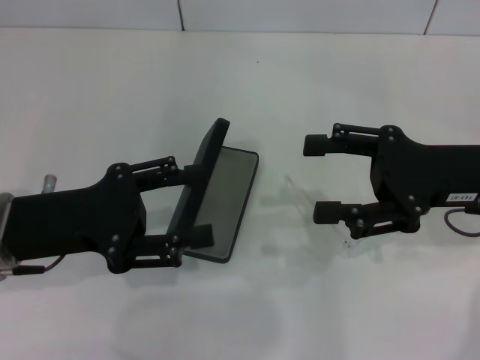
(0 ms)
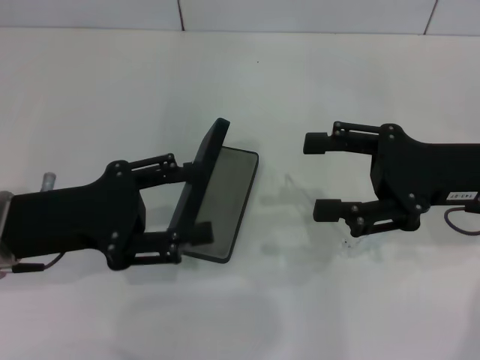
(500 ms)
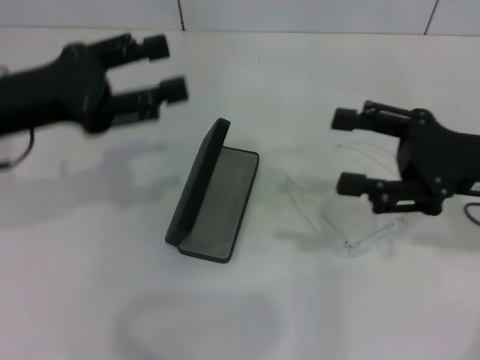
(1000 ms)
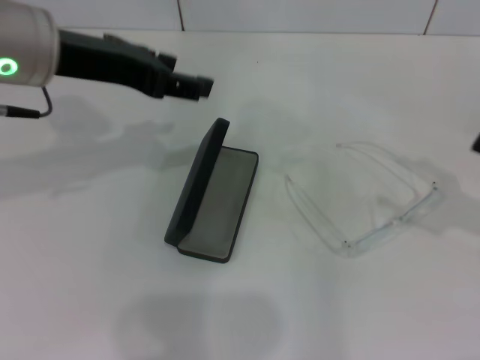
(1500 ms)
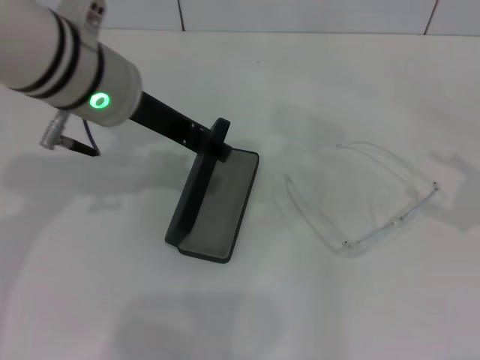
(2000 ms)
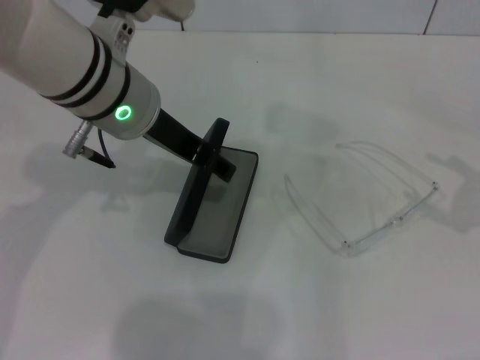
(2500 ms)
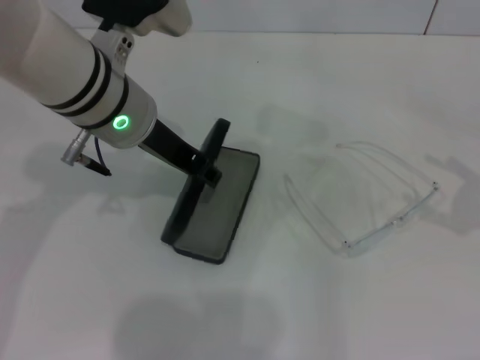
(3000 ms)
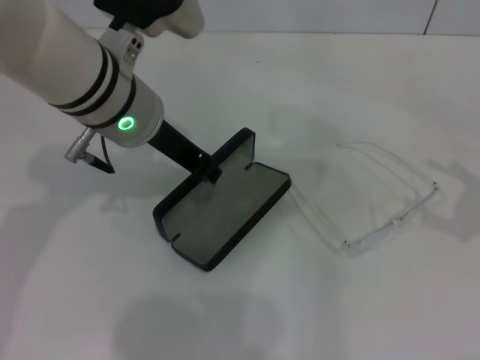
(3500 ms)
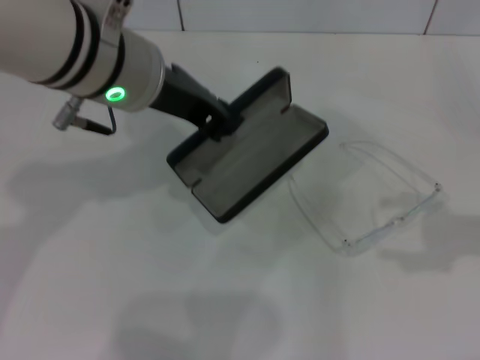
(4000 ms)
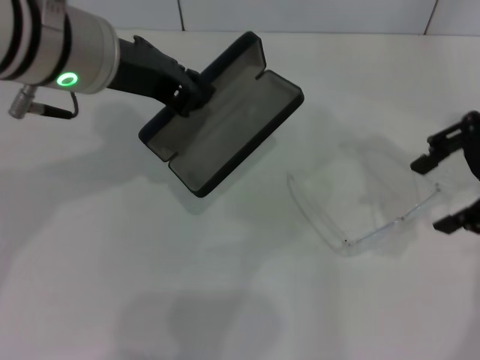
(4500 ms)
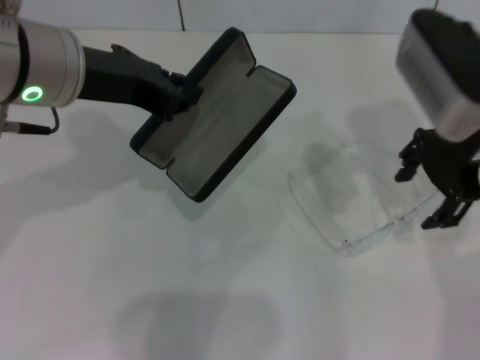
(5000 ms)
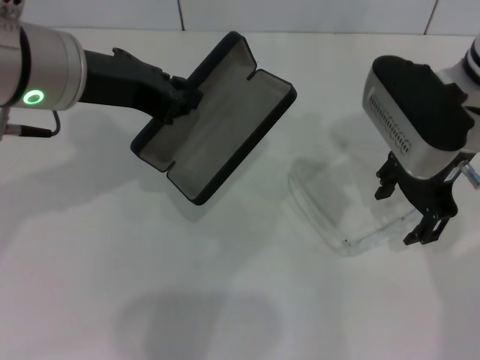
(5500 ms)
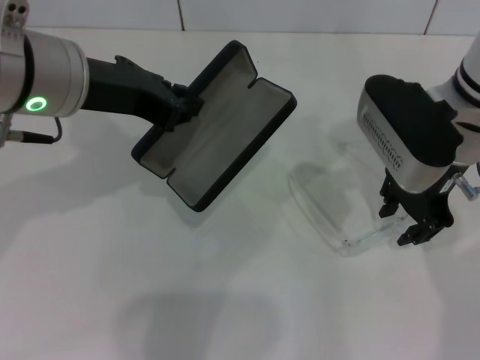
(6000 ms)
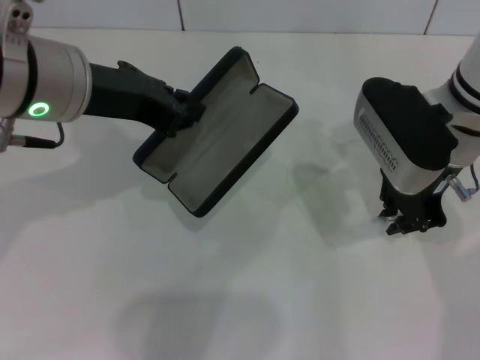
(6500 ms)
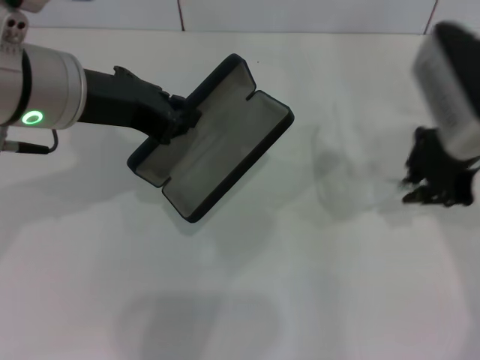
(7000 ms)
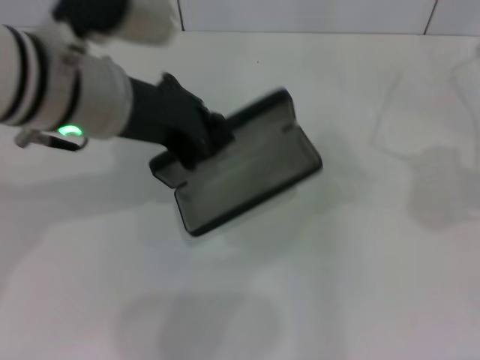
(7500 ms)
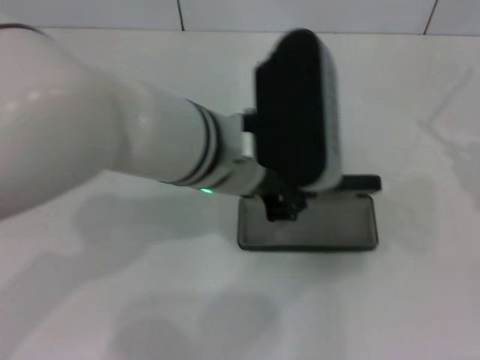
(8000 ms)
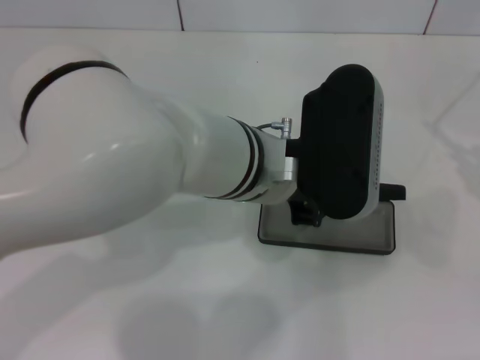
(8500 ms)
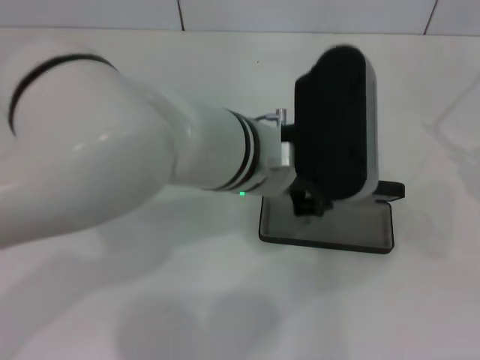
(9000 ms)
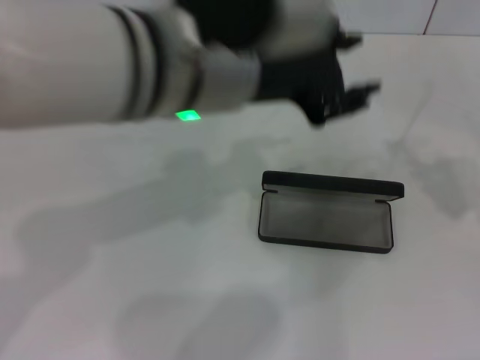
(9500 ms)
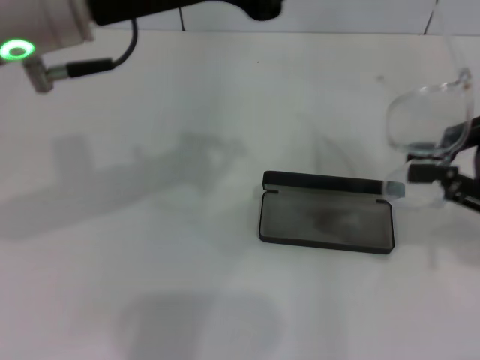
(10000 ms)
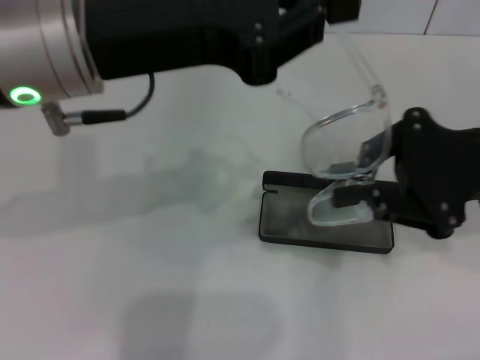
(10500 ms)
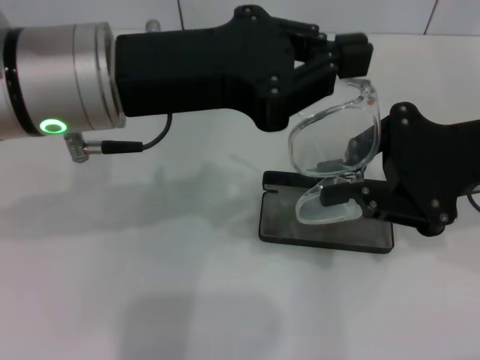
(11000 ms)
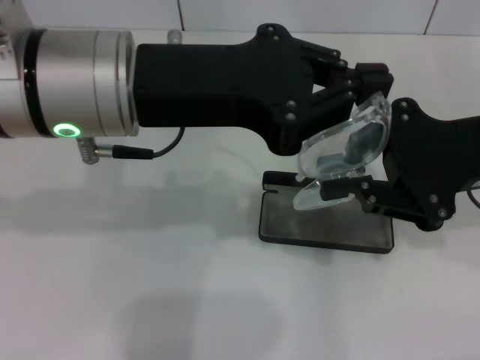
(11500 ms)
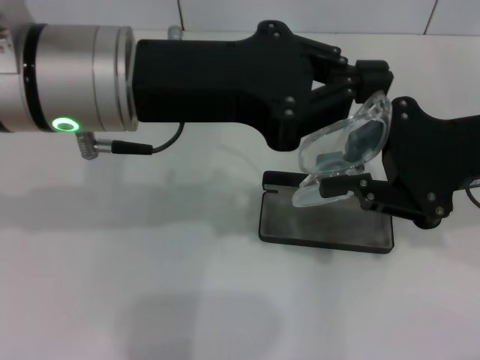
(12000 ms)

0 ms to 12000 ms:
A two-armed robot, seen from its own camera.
Step, 0 ms to 3000 ms: Grab the glasses case with your left hand.
Step, 3500 ms to 6500 ms: Grab the eyeglass frame with your right hand.
Step, 7000 ms to 8500 ms: Place the glasses case in the center of the table with your left hand.
0 ms to 2000 ms: The right gripper goes some 15 cm to the right; the left gripper heads to the right, upward and forward, covering approximately 20 cm.
2000 ms to 4000 ms: The right gripper moves approximately 5 cm; the left gripper closes.
4000 ms to 6000 ms: The right gripper moves to the left and forward, about 25 cm, and closes its fingers. Meanwhile the left gripper goes approximately 5 cm to the left.
6000 ms to 8000 ms: The right gripper shifts about 25 cm to the right, backward and upward, and closes its fingers; the left gripper heads to the right and downward, covering approximately 15 cm.
8000 ms to 10000 ms: The left gripper shifts some 15 cm upward and to the left; the right gripper is displaced to the left and downward by approximately 10 cm.
10000 ms to 12000 ms: The right gripper shifts some 5 cm to the left. Meanwhile the left gripper moves approximately 5 cm.

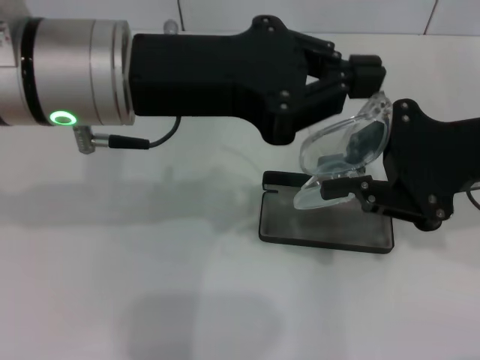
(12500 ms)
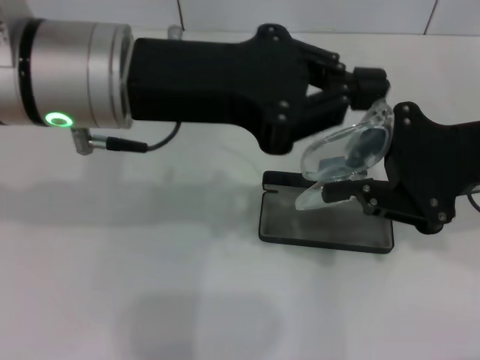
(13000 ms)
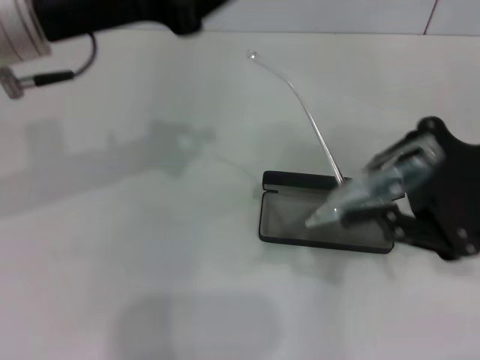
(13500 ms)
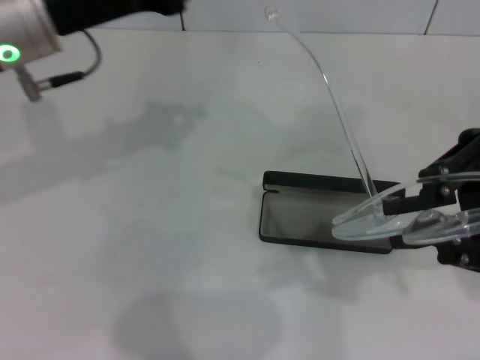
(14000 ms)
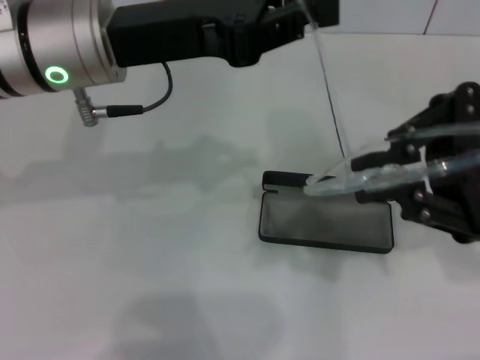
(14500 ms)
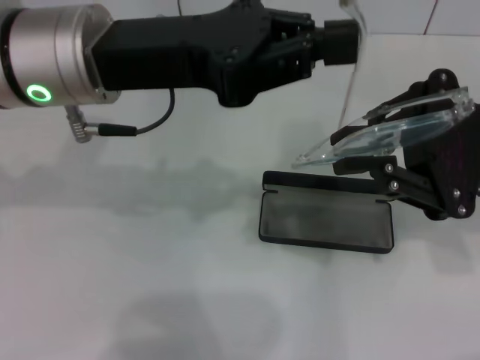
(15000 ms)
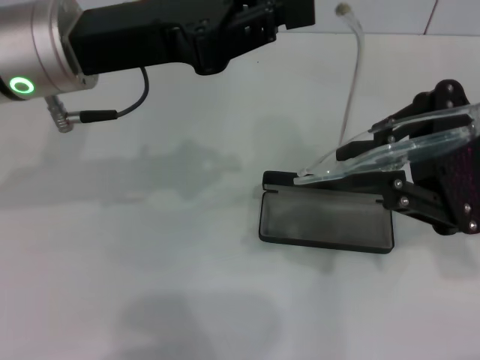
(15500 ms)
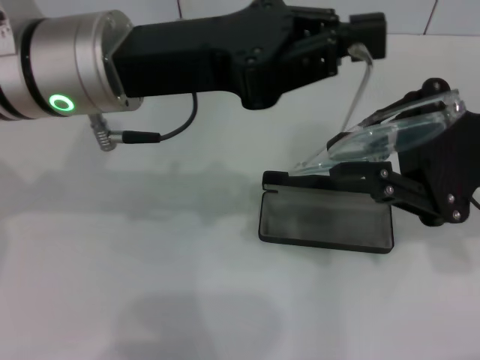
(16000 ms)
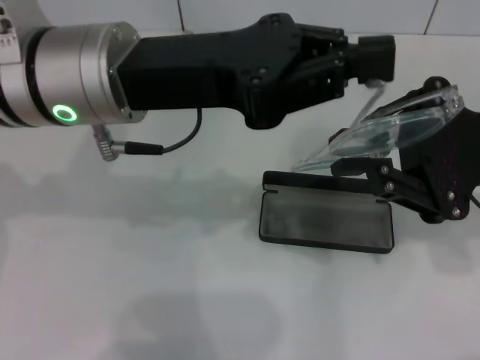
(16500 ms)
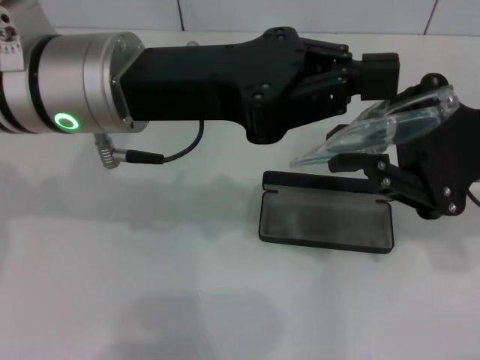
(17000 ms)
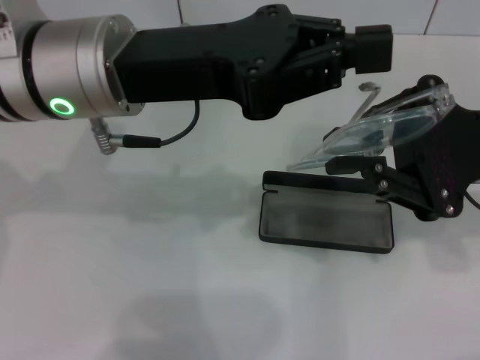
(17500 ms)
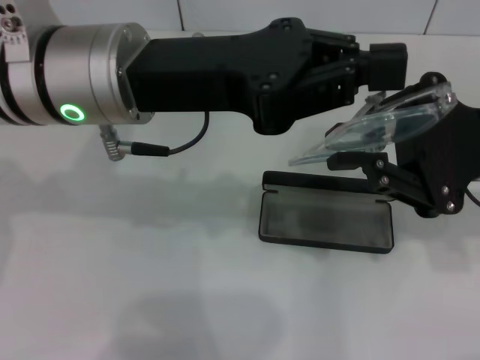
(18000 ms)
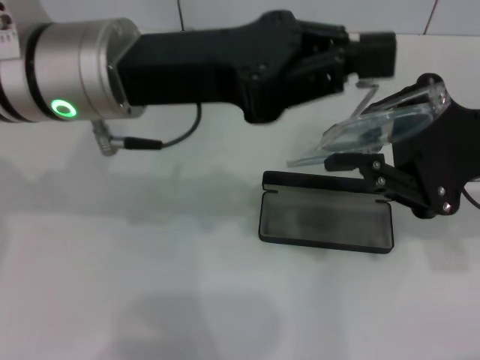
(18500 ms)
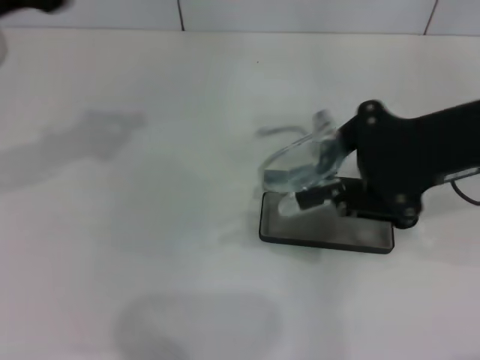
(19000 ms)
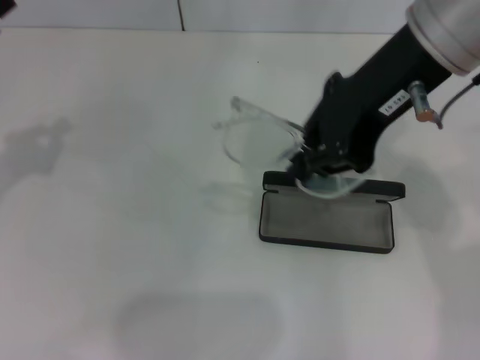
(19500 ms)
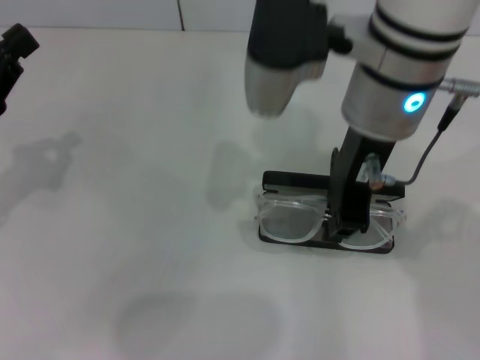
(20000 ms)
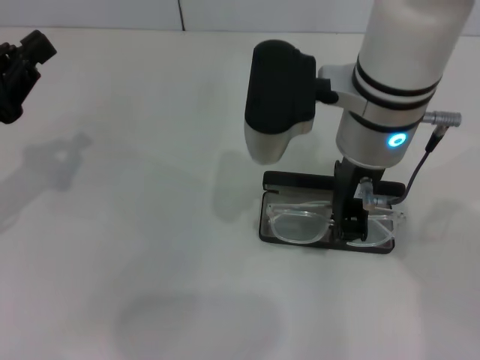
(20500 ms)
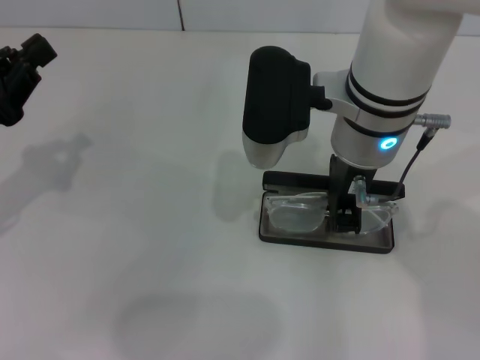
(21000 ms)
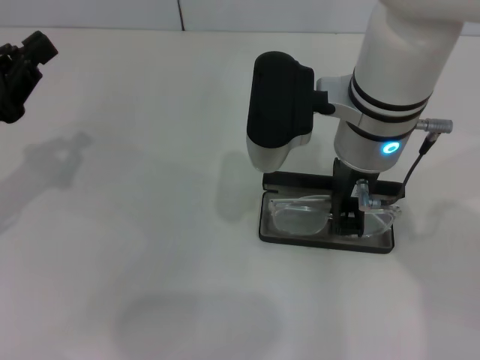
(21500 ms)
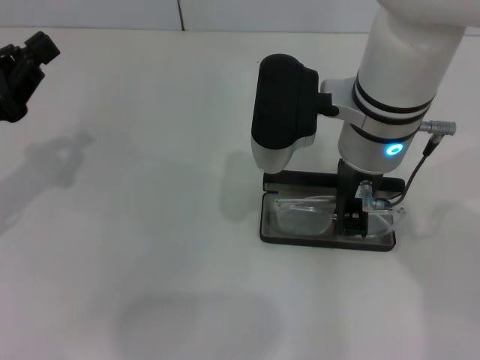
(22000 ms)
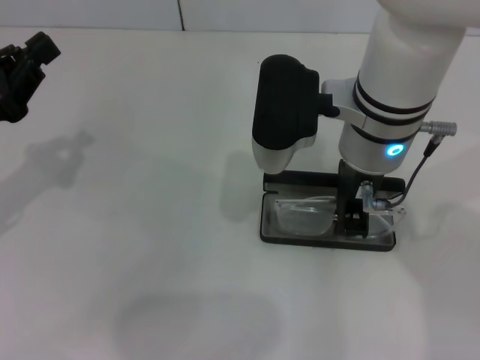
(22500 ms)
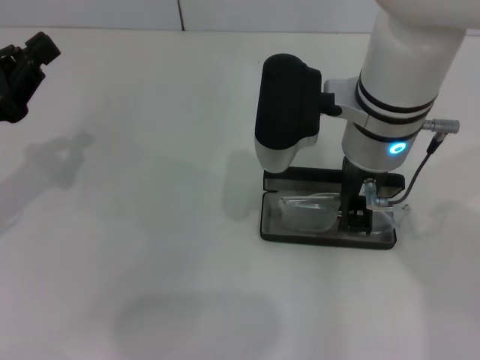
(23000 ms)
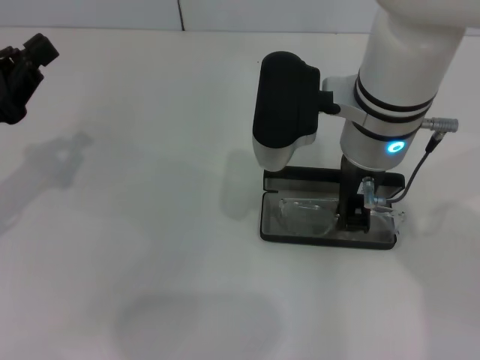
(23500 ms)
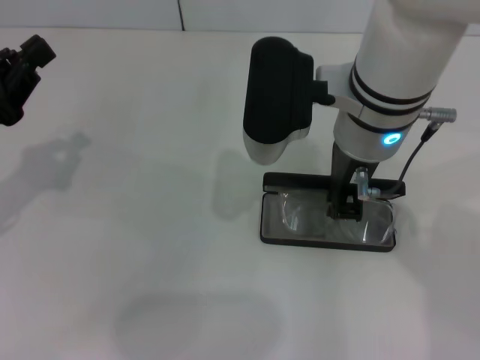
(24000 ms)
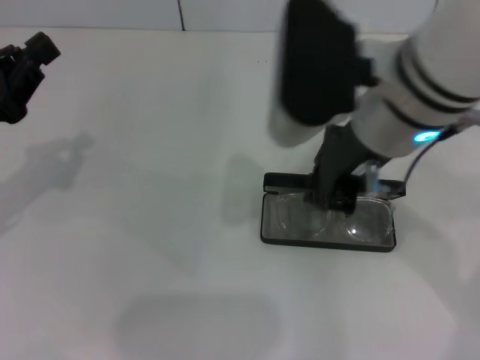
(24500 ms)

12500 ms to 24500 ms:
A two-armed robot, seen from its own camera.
Step, 12500 ms to 18000 ms: Lift the glasses with your right hand.
Step, 19000 ms to 24000 ms: Put the glasses into the case with your right hand.
16500 ms to 18500 ms: Both grippers stay about where they are.
18500 ms to 20500 ms: The right gripper travels to the left by approximately 15 cm, while the left gripper goes approximately 20 cm to the left and downward.
20500 ms to 22500 ms: The grippers stay close to where they were, moving slightly.
22500 ms to 24500 ms: The right gripper moves upward, approximately 5 cm.

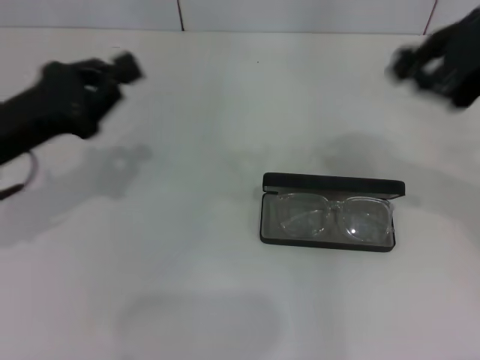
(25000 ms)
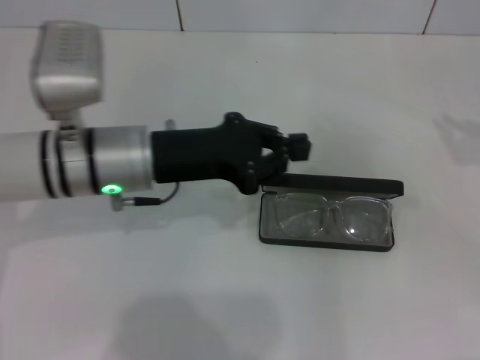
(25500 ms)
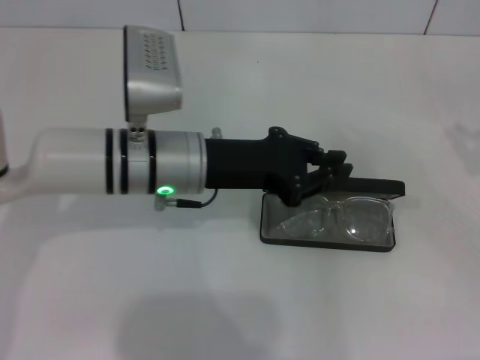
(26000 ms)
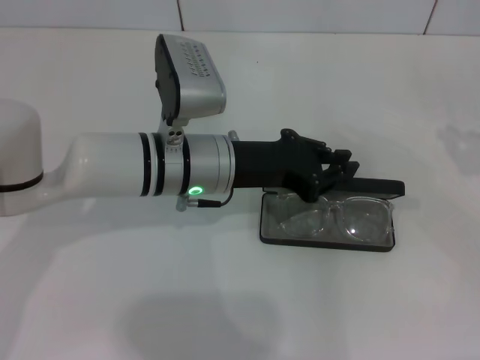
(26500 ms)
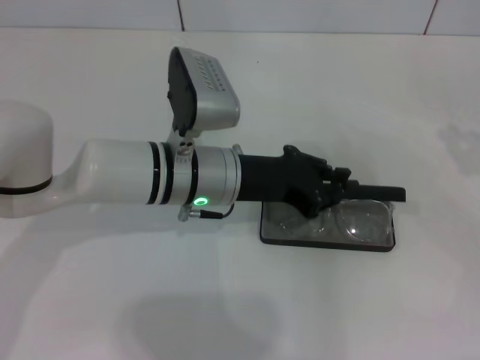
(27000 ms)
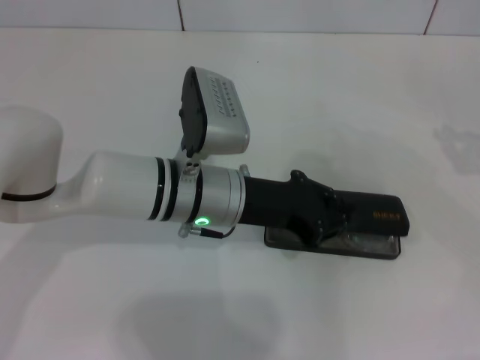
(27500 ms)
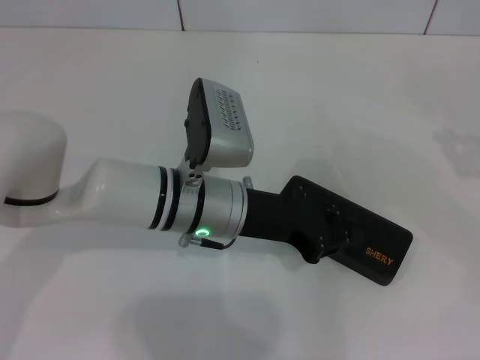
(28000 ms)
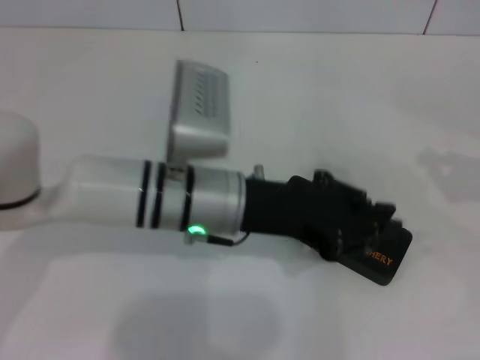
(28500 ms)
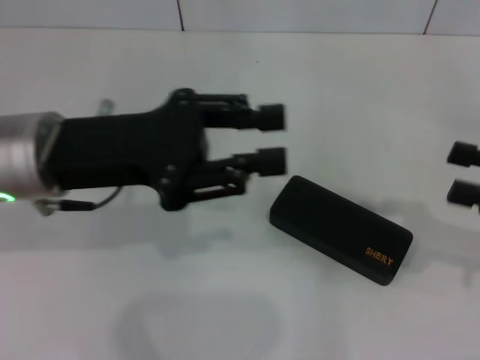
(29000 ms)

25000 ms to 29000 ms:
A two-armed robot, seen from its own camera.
Step, 25000 ms to 28000 ms: Close the glasses case with your left hand.
25000 ms to 27000 ms: The right gripper travels to the right and downward by about 20 cm, while the left gripper is displaced to the right by roughly 20 cm.
27000 ms to 29000 ms: The left gripper shifts roughly 15 cm to the left and upward, while the right gripper travels to the left by approximately 5 cm.
